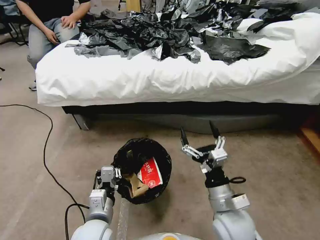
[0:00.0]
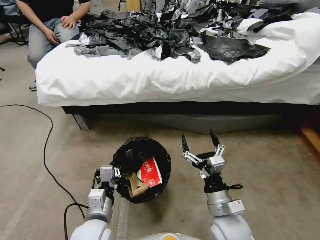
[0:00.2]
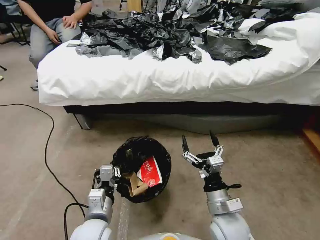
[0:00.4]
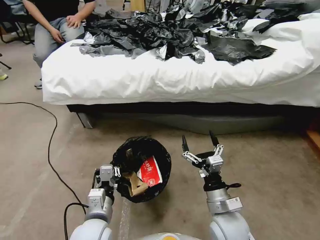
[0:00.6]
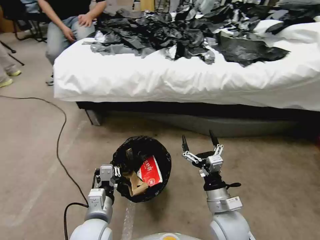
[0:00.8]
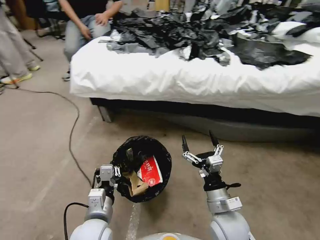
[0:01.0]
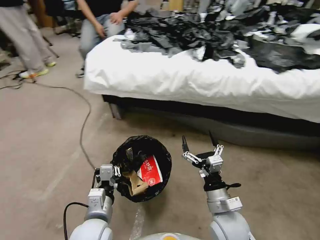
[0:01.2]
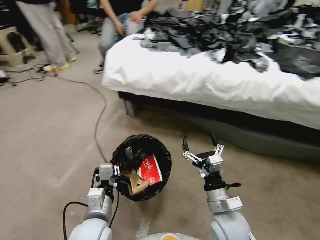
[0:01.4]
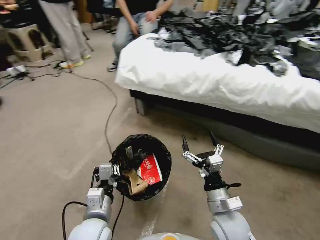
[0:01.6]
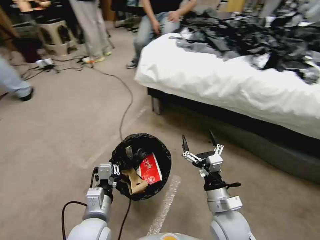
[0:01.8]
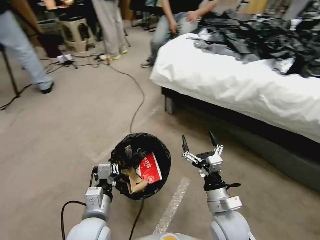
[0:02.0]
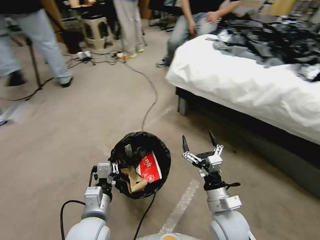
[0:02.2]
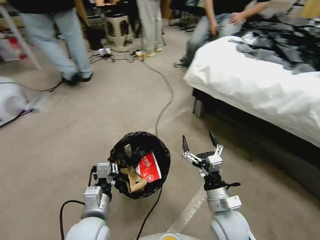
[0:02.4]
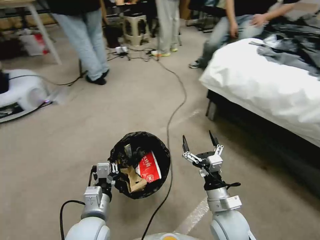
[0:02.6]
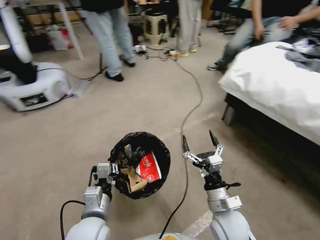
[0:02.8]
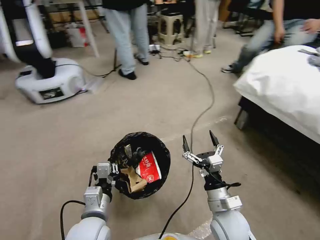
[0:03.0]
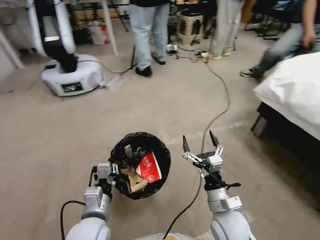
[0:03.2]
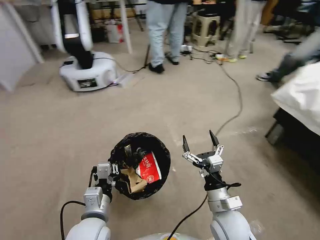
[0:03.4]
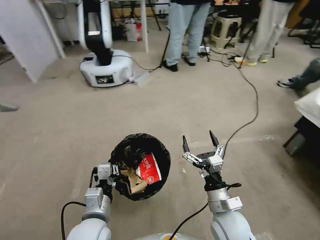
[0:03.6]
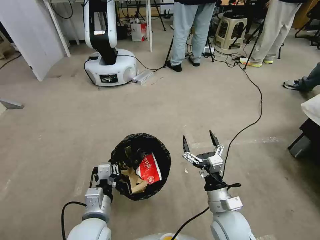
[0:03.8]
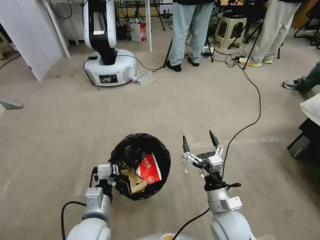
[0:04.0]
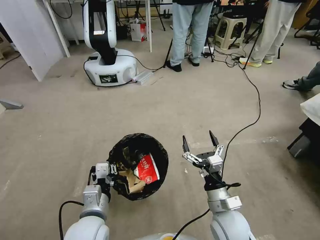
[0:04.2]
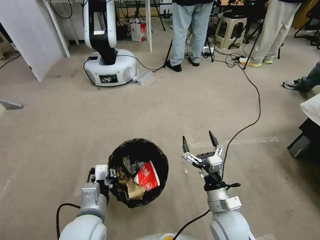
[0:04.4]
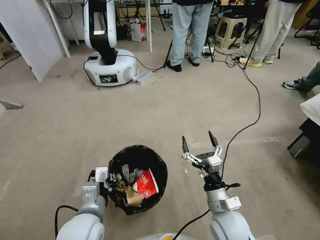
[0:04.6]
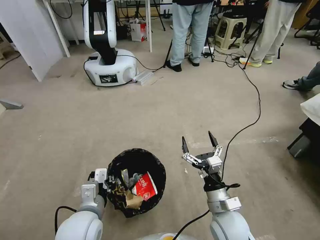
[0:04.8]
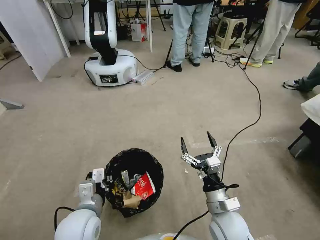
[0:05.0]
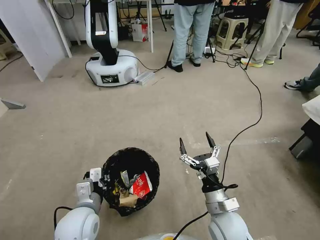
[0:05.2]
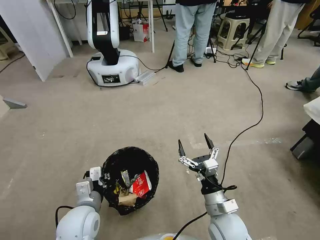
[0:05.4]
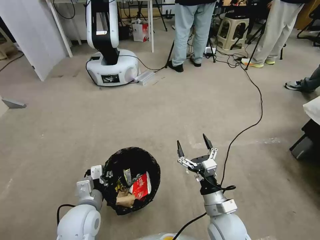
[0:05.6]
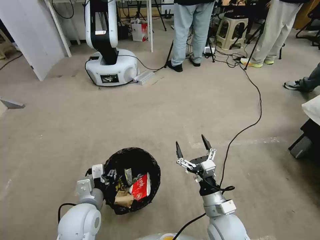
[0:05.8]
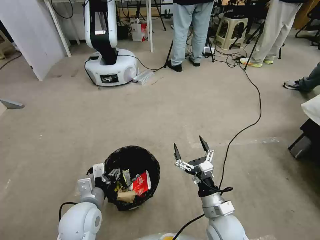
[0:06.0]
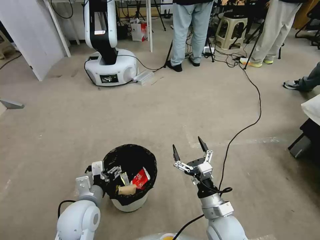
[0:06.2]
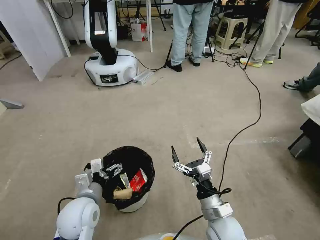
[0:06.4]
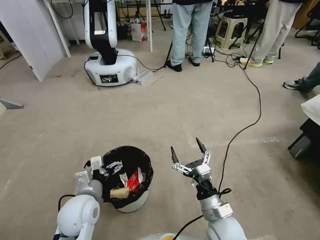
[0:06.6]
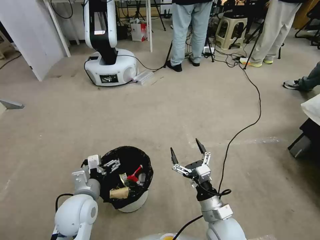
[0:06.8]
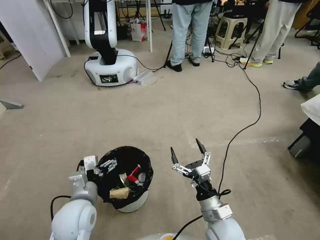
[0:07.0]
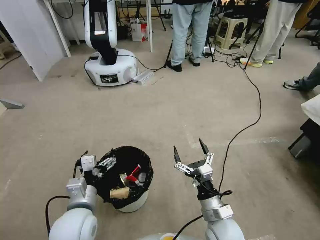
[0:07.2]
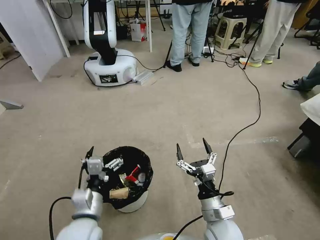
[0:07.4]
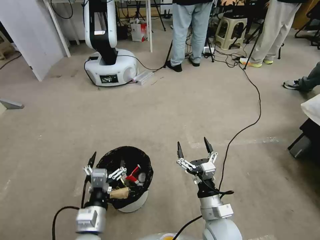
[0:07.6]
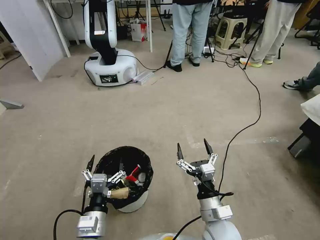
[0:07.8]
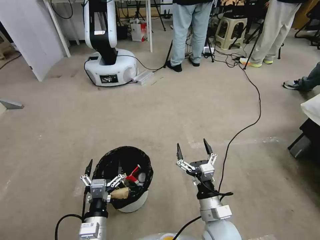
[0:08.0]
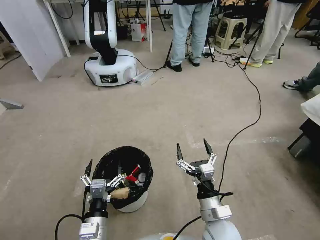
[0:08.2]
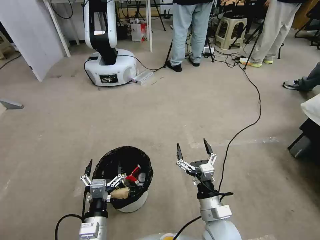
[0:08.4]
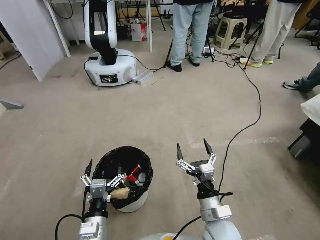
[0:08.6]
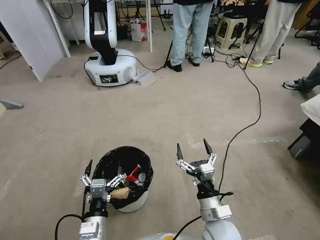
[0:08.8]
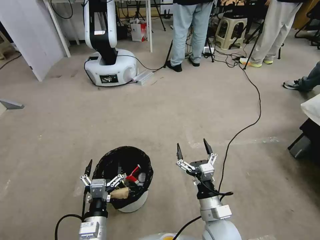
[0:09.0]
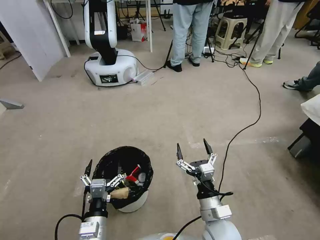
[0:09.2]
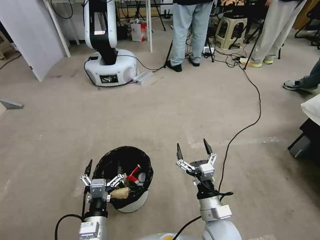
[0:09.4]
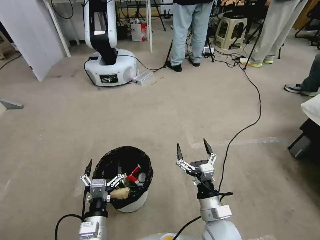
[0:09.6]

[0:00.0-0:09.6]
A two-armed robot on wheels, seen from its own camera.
Task of the whole recording: Pick up the trash bin, then pick up the garbage from the floor and place it into the trash bin.
0:04.8 to 0:06.4: The left gripper opens.
0:06.4 to 0:08.0: The left gripper is displaced backward and downward by roughly 10 cm.
0:08.0 to 0:09.6: The two grippers keep their place.

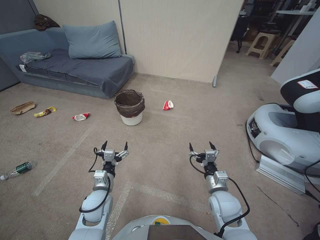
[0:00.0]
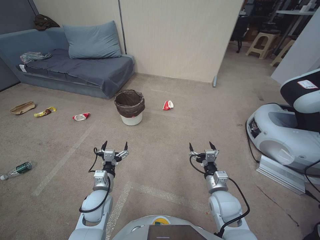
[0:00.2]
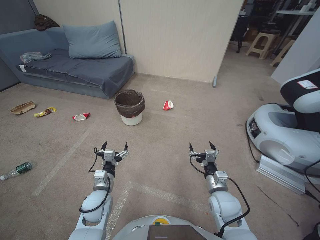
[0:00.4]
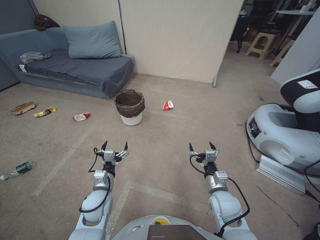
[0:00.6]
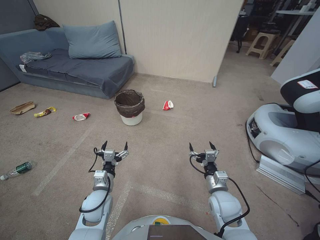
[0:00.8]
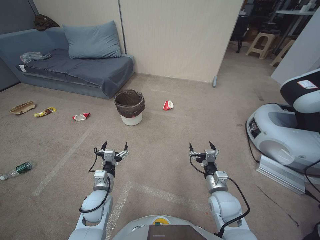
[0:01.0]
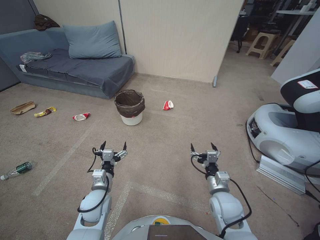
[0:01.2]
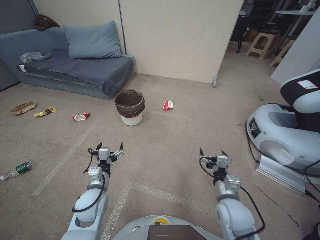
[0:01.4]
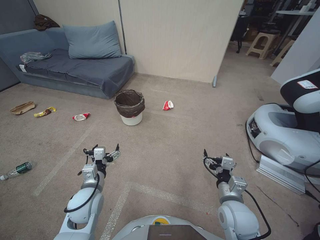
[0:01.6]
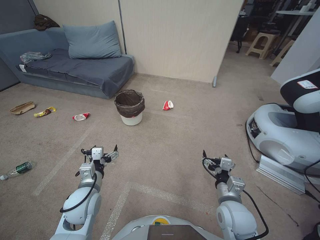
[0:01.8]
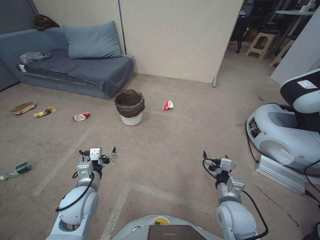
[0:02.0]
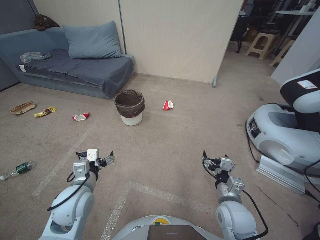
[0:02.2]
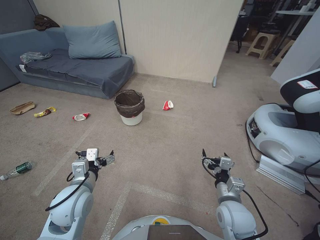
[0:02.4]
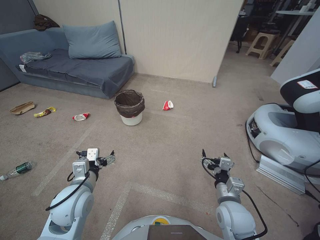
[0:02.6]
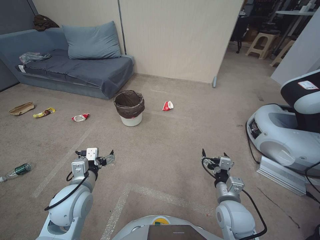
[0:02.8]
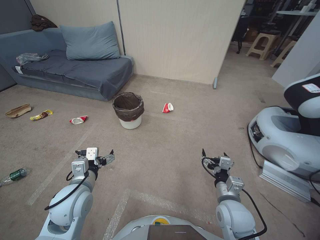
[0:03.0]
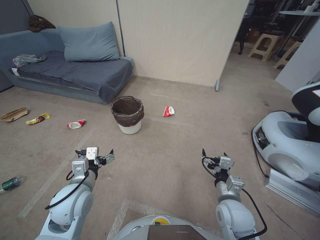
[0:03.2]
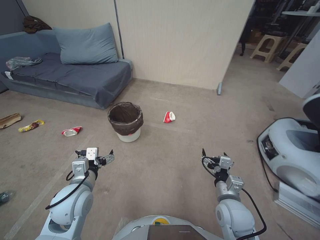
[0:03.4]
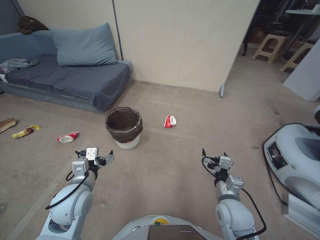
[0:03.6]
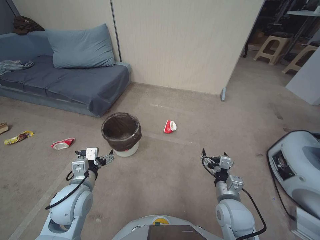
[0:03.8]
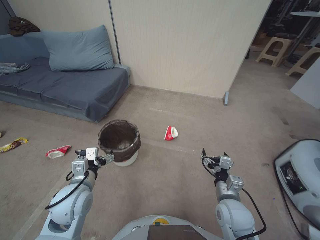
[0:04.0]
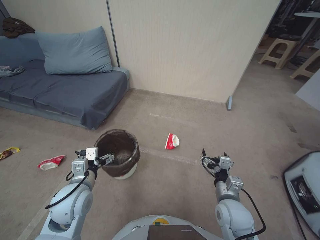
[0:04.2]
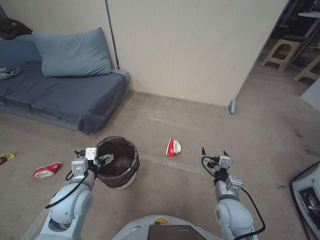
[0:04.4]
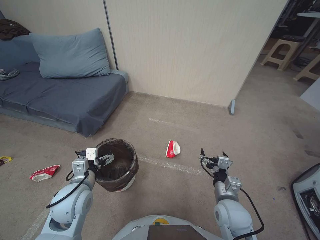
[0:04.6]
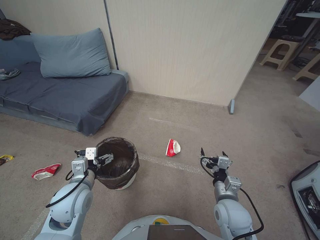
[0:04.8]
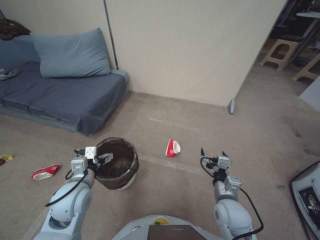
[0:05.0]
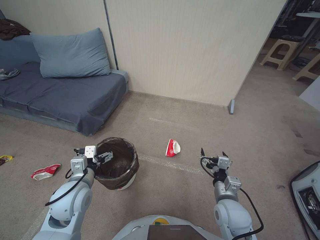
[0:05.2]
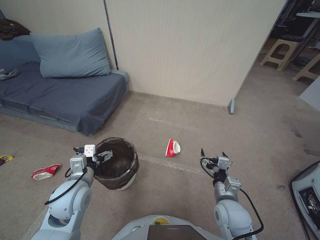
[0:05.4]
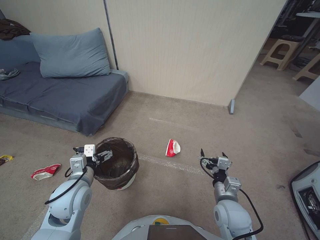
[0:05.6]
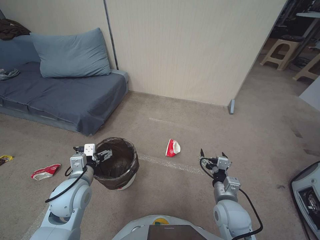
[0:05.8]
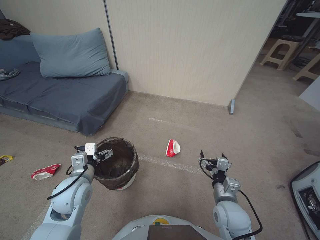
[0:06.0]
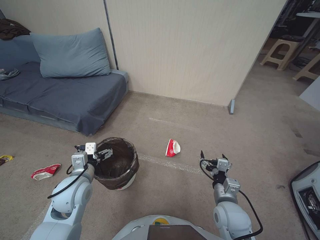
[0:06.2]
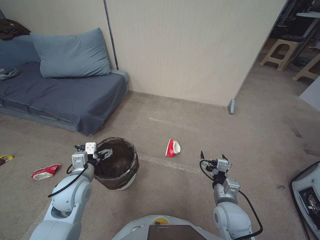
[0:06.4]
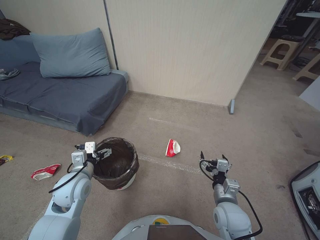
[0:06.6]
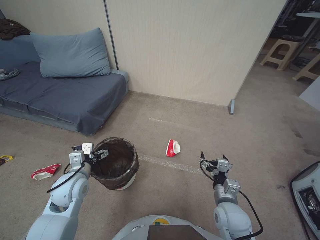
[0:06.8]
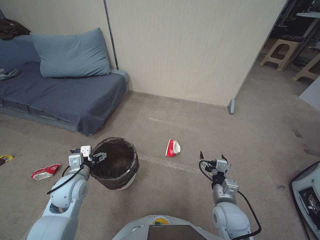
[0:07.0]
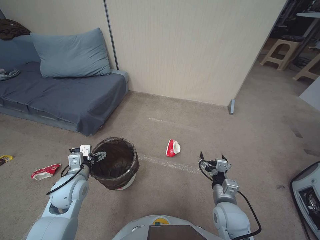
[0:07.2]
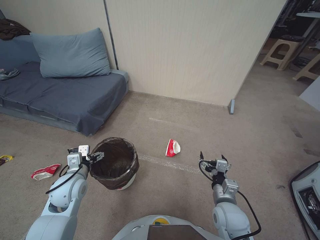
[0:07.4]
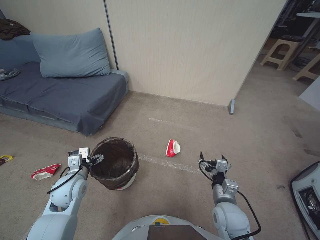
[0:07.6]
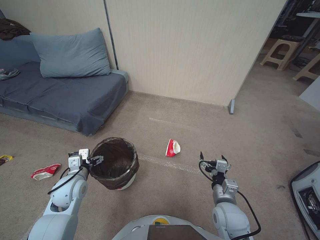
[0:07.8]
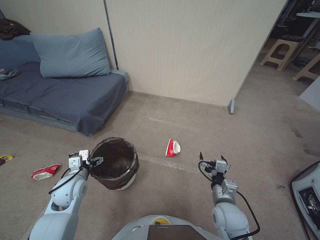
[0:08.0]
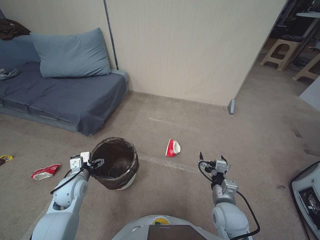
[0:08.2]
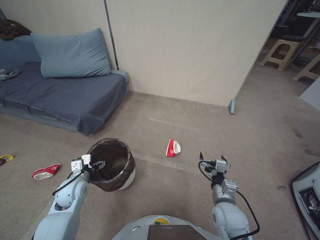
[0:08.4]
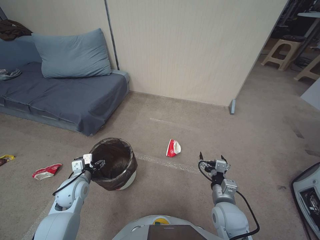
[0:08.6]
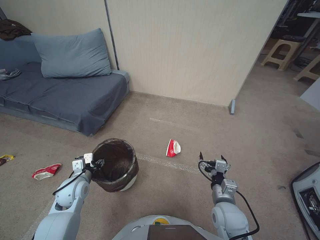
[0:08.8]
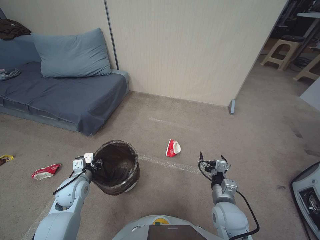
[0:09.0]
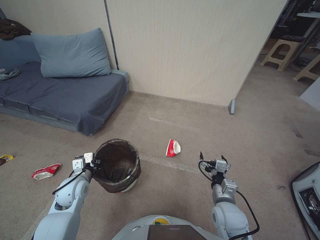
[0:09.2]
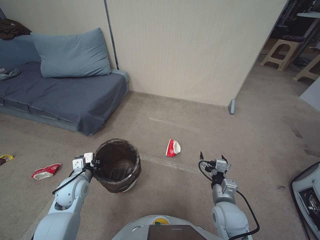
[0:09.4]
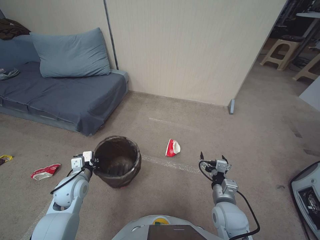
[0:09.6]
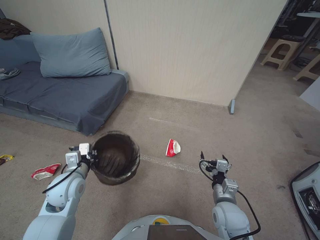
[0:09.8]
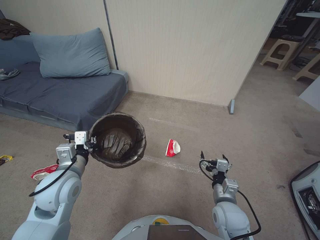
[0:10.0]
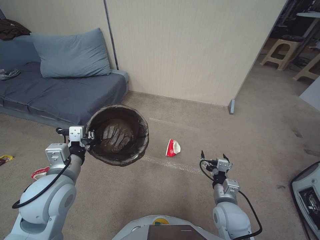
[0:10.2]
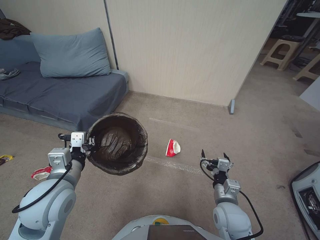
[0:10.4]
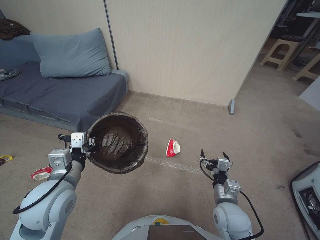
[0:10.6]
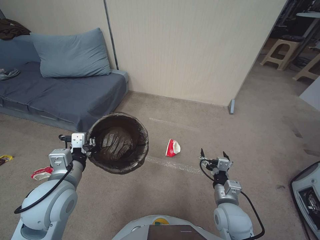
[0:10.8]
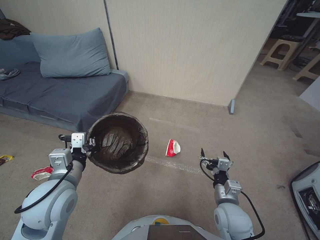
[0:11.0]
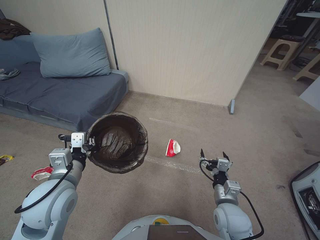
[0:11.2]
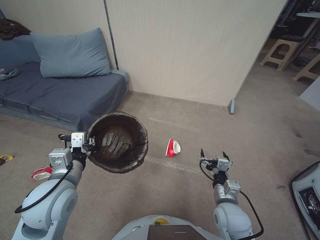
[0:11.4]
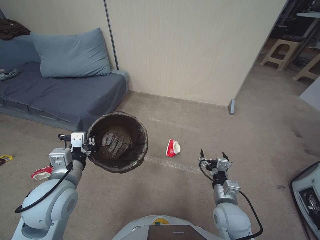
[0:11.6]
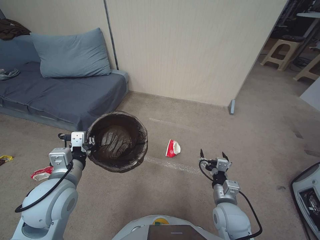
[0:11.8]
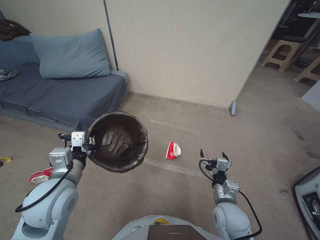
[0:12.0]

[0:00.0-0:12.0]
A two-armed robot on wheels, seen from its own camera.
Task of the whole recording: Pick up the trash bin, then pick up the garbage from the floor and place it into the trash bin.
0:01.6 to 0:03.0: The left gripper goes approximately 10 cm upward.
0:04.4 to 0:06.0: The grippers stay close to where they were, moving slightly.
0:06.0 to 0:07.6: The left gripper changes place by some 5 cm.
0:07.6 to 0:09.0: The left gripper goes about 5 cm downward, and closes up.
0:09.0 to 0:10.4: The left gripper heads upward, covering roughly 15 cm, and closes.
0:10.4 to 0:12.0: The grippers make only small movements.

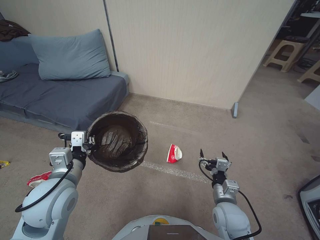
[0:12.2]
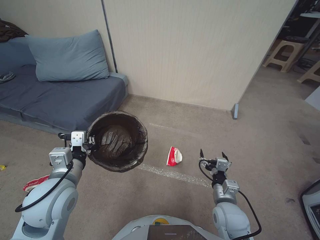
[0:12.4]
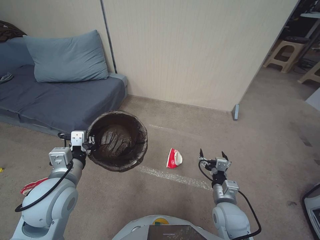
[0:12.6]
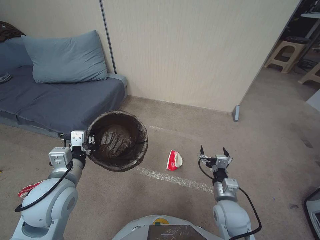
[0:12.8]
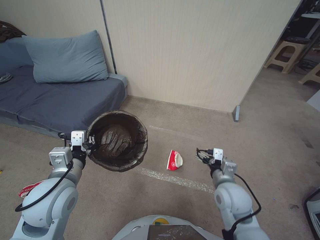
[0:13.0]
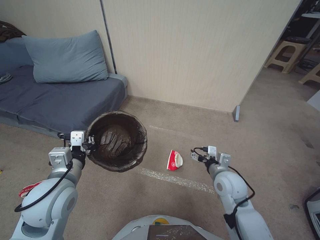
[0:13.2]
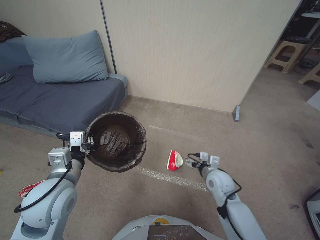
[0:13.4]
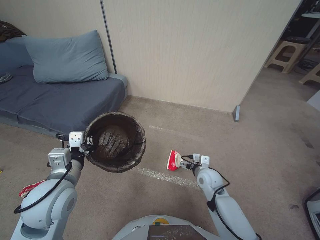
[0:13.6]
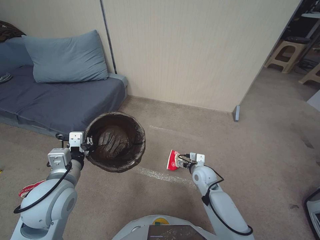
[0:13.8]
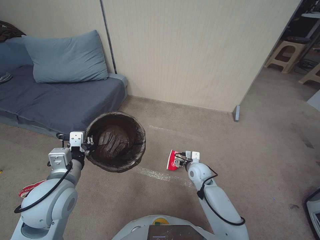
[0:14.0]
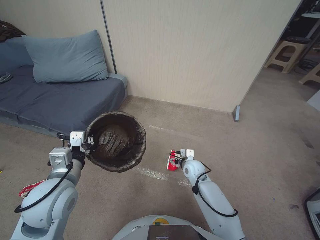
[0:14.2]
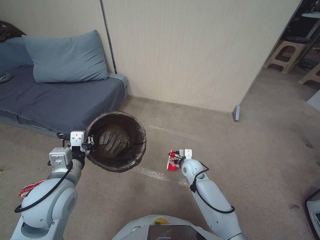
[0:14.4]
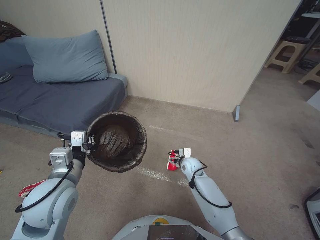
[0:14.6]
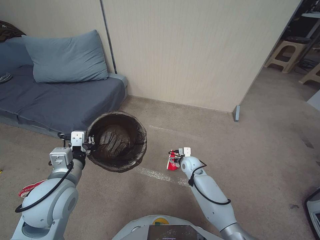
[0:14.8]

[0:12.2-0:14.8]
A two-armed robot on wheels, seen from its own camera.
Task of the whole recording: Pick up the trash bin, then pick up the garbage from the floor and place it into the trash bin.
0:12.2 to 0:13.4: The right gripper heads upward, covering some 5 cm.
0:13.4 to 0:14.8: The right gripper travels forward and downward by about 20 cm.
